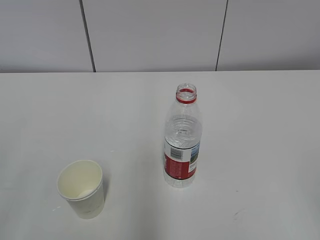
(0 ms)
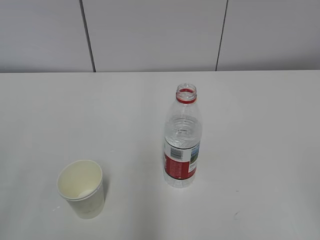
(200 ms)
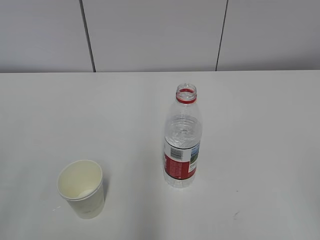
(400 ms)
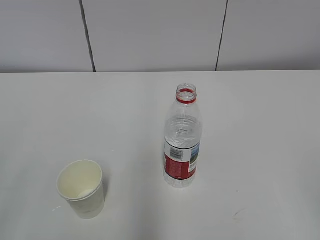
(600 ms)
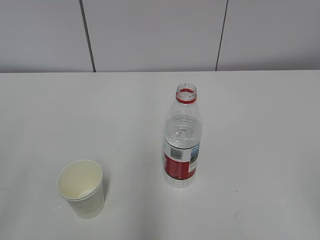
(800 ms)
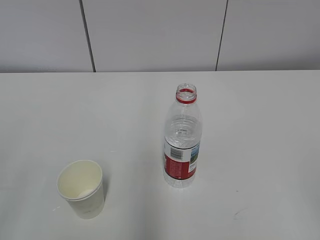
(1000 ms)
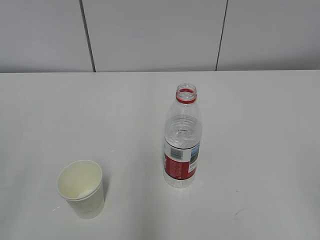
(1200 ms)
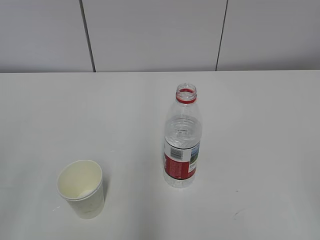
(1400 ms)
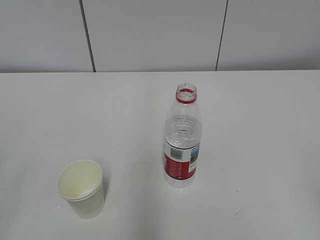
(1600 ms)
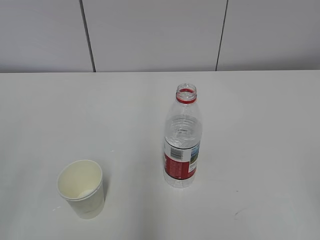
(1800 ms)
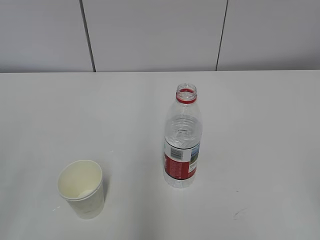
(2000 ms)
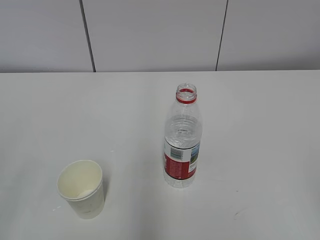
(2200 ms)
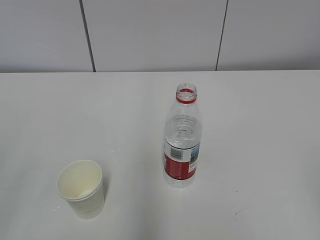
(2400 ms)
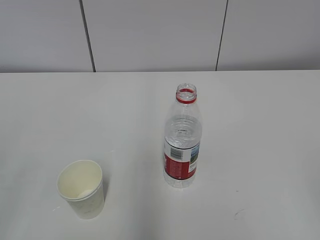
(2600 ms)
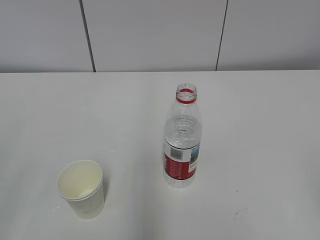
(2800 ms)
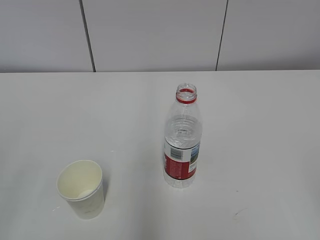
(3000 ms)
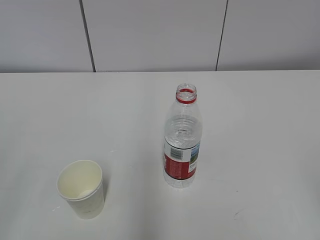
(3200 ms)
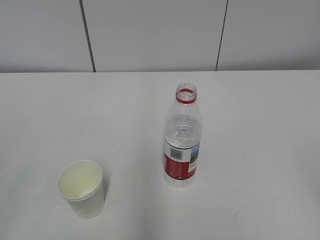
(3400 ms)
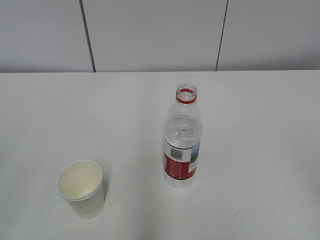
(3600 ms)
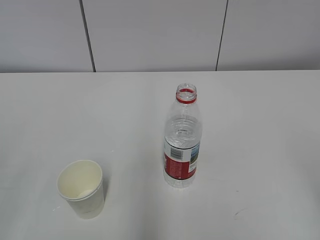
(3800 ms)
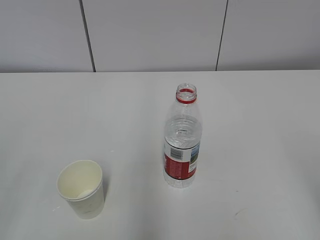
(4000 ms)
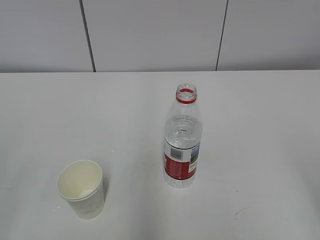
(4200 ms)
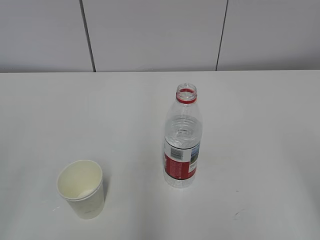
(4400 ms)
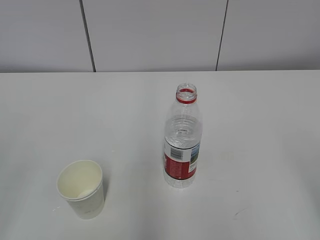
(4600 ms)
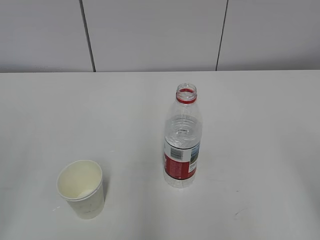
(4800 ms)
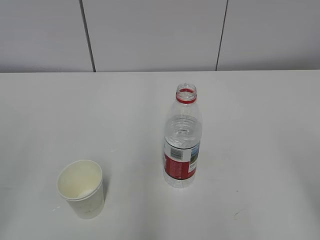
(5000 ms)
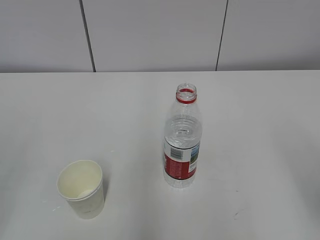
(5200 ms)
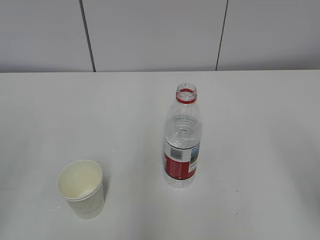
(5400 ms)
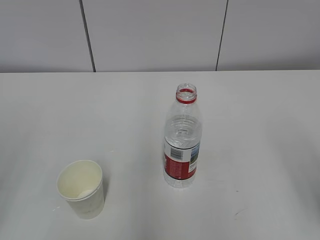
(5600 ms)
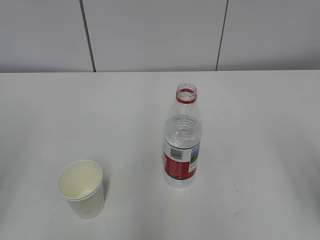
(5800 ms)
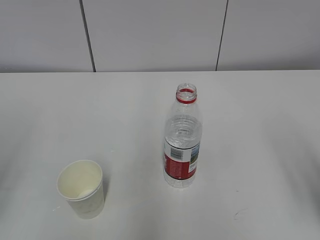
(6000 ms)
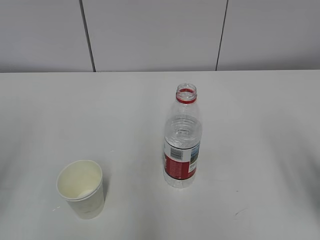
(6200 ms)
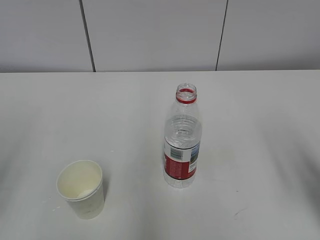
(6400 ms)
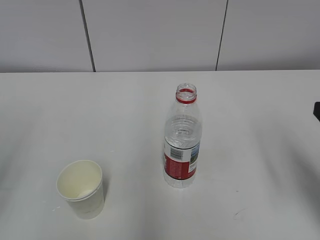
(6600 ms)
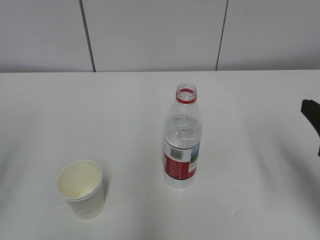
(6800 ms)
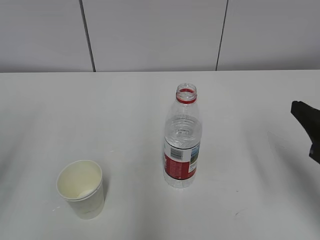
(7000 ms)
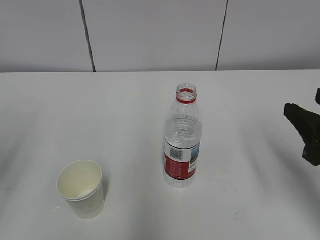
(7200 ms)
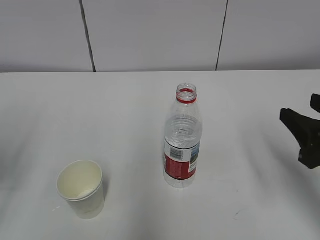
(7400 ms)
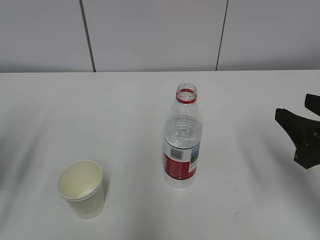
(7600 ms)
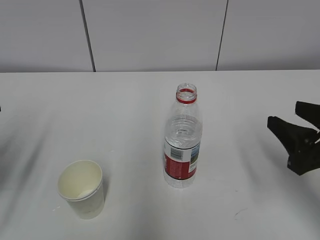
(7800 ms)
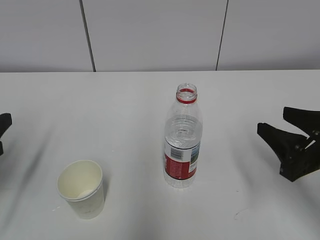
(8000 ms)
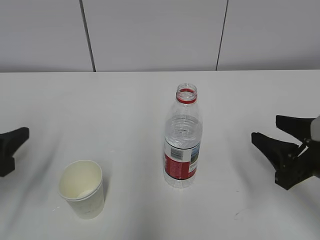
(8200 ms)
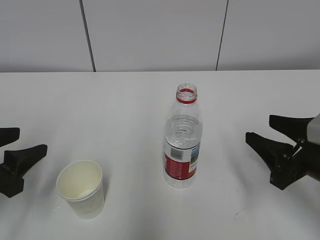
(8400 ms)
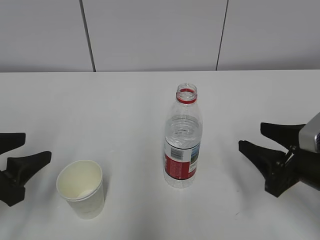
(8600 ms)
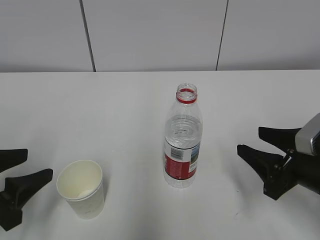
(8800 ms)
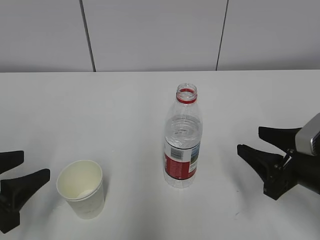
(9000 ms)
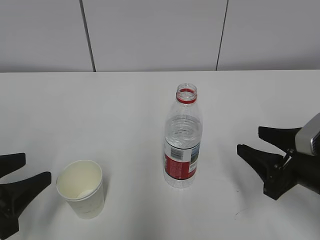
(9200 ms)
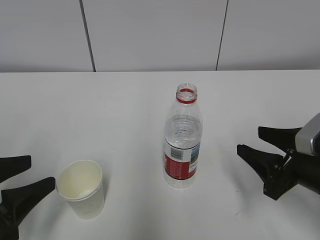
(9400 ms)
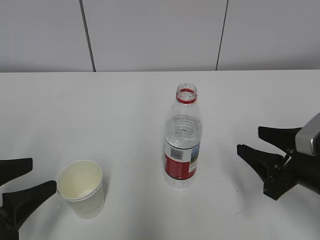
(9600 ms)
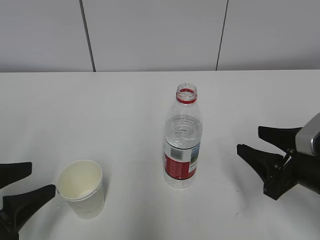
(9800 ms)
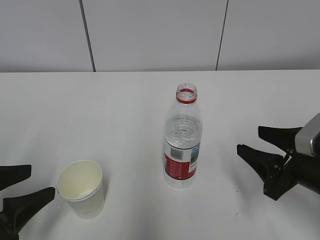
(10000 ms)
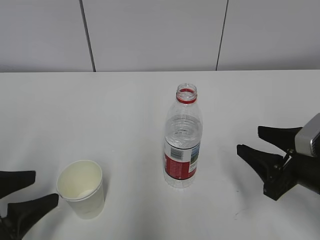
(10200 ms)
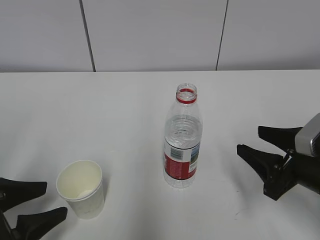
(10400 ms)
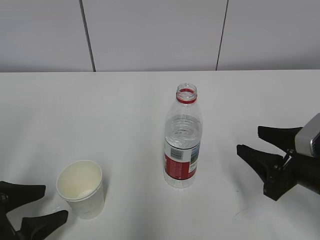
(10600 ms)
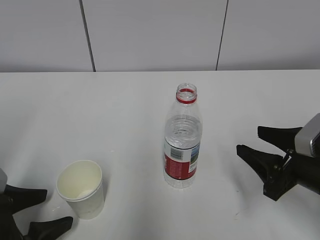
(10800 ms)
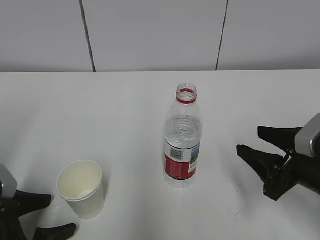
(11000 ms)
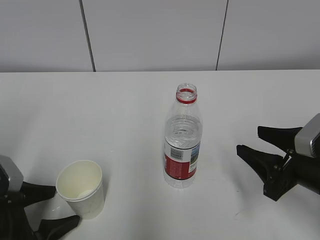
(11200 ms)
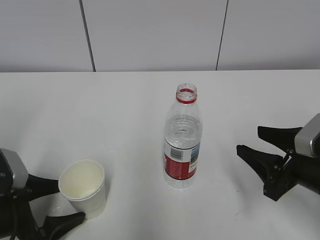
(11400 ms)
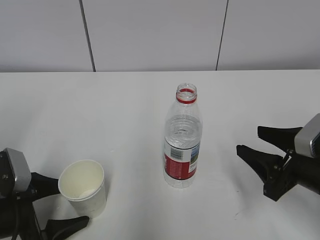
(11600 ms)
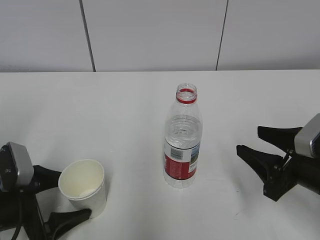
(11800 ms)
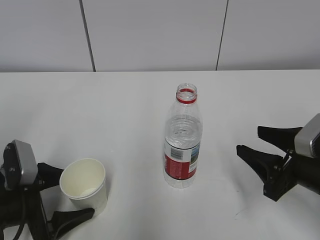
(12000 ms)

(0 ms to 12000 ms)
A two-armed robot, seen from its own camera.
Step, 0 ms - 11400 ms: Grab the paper cup with the left hand.
1600 ms - 3000 ms: Neither gripper changes place.
6000 ms - 7600 ms: The right gripper moves forward and downward, some 10 cm.
7600 ms - 9000 ms: The two grippers go some 5 cm downward.
9000 ms - 10400 ms: The grippers stay close to where they were, moving slightly.
10400 ms - 12000 ms: The left gripper travels forward by roughly 5 cm.

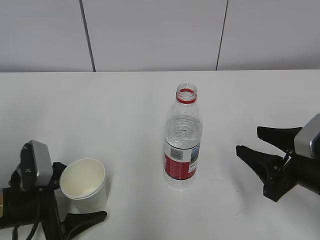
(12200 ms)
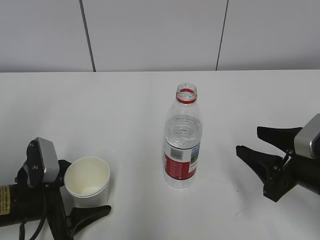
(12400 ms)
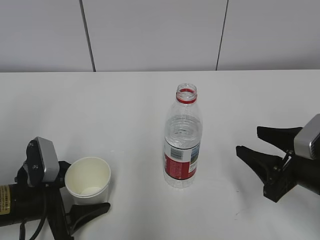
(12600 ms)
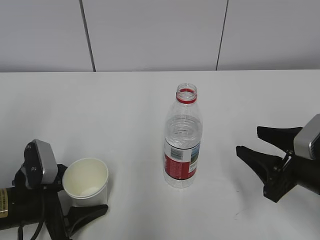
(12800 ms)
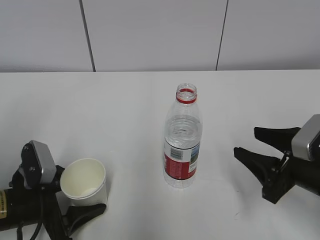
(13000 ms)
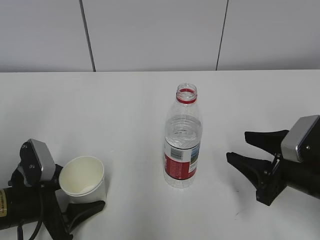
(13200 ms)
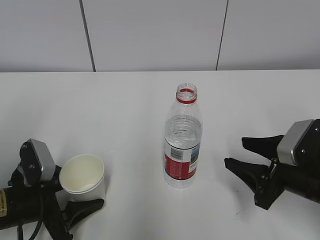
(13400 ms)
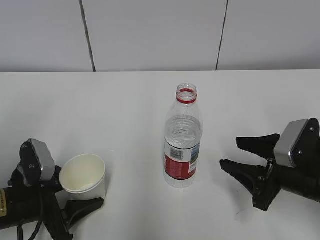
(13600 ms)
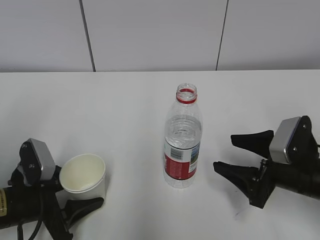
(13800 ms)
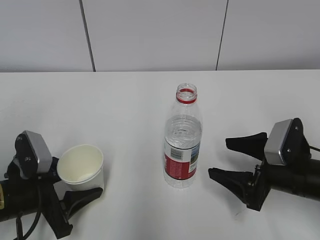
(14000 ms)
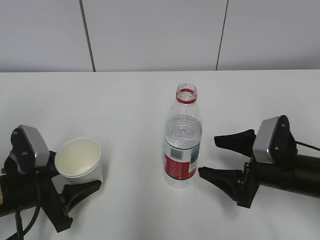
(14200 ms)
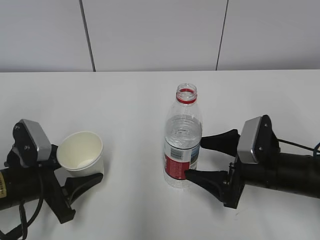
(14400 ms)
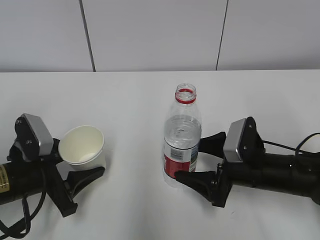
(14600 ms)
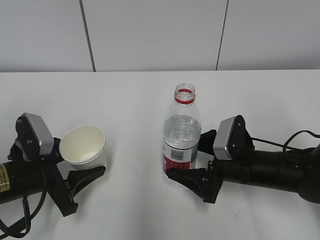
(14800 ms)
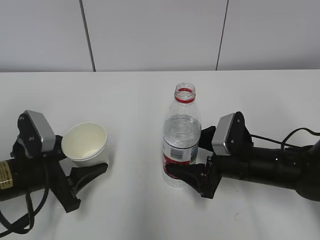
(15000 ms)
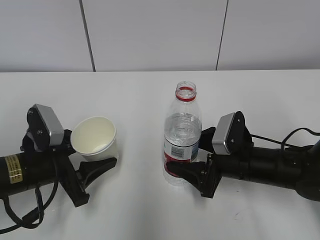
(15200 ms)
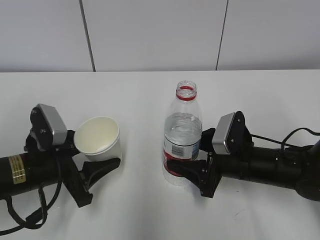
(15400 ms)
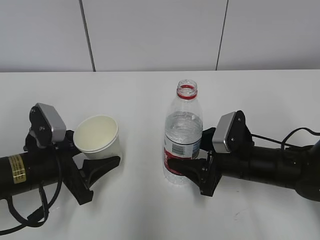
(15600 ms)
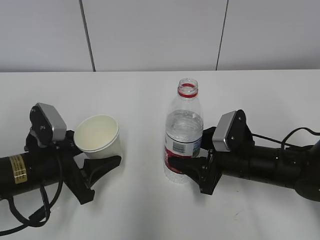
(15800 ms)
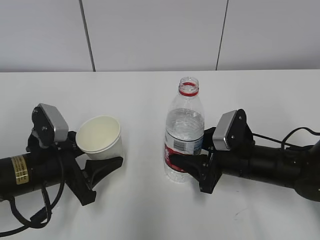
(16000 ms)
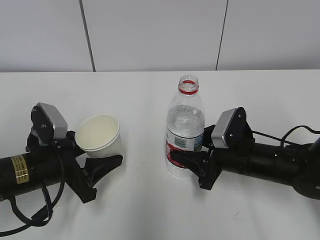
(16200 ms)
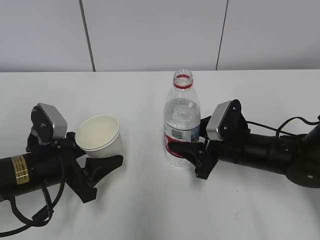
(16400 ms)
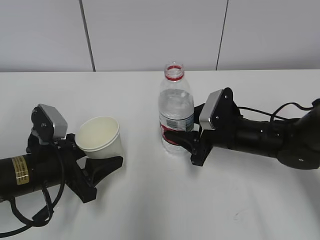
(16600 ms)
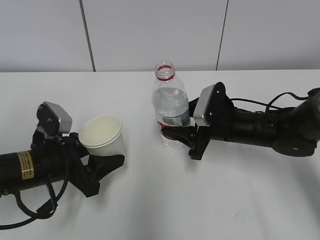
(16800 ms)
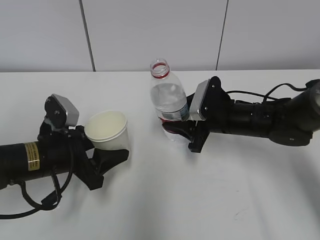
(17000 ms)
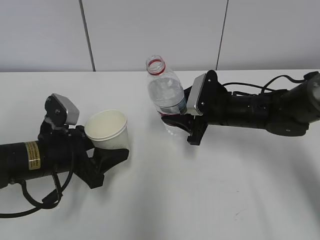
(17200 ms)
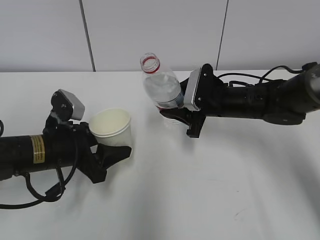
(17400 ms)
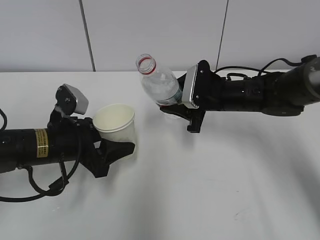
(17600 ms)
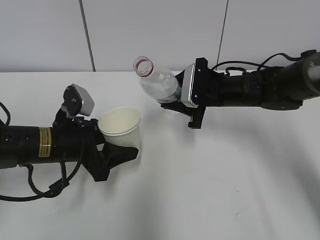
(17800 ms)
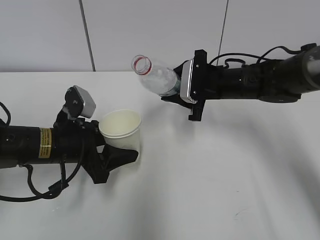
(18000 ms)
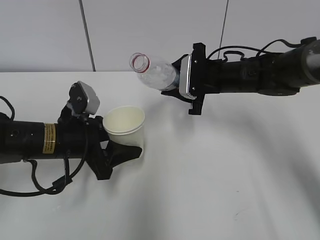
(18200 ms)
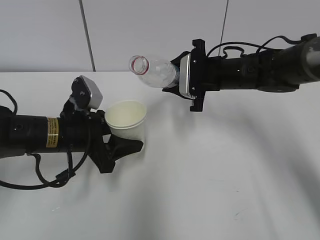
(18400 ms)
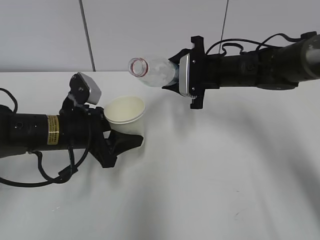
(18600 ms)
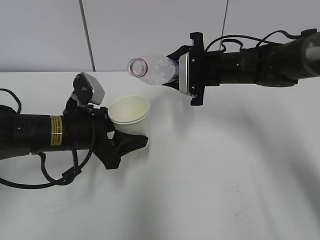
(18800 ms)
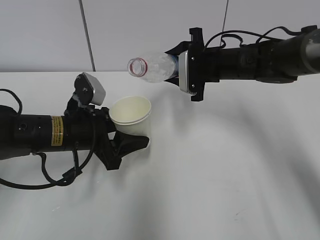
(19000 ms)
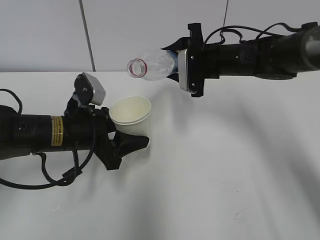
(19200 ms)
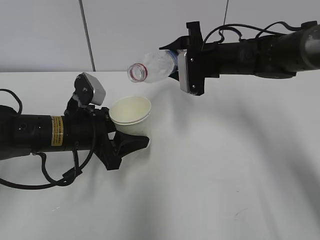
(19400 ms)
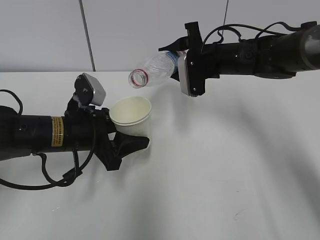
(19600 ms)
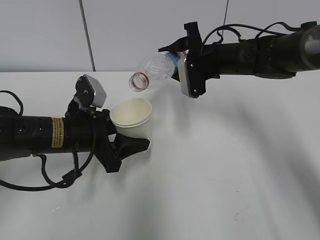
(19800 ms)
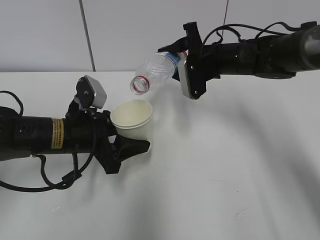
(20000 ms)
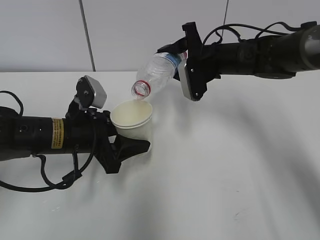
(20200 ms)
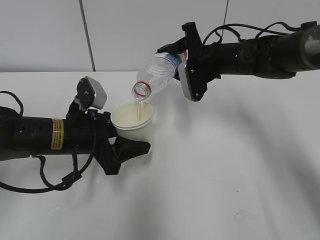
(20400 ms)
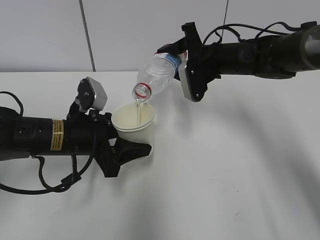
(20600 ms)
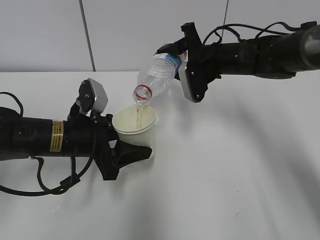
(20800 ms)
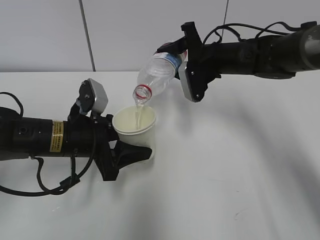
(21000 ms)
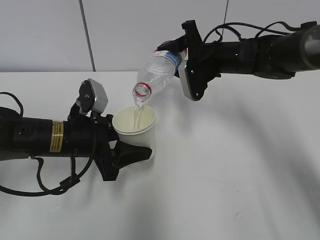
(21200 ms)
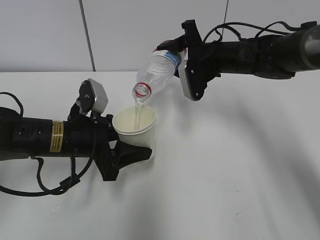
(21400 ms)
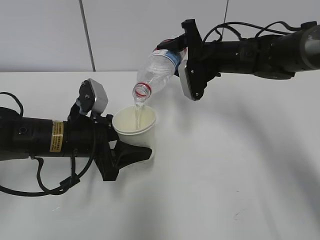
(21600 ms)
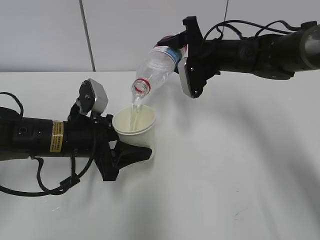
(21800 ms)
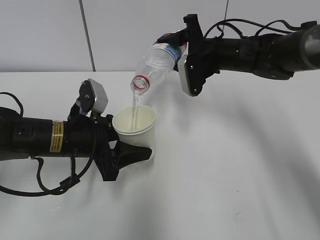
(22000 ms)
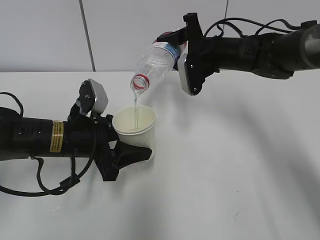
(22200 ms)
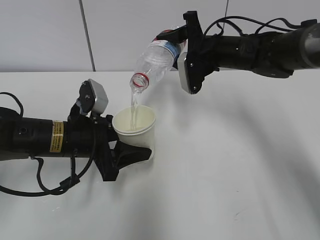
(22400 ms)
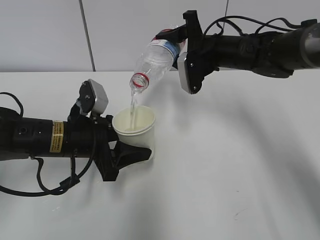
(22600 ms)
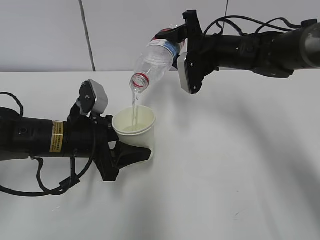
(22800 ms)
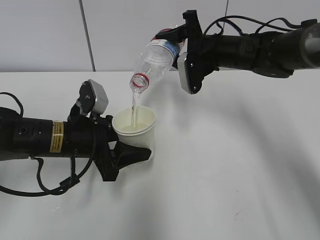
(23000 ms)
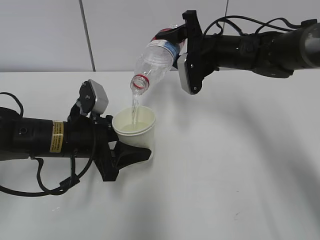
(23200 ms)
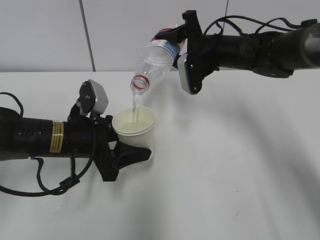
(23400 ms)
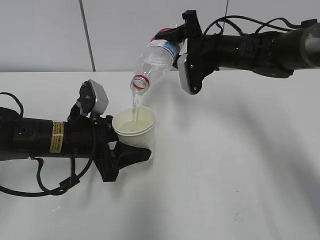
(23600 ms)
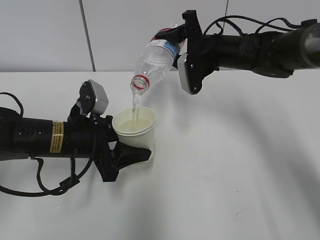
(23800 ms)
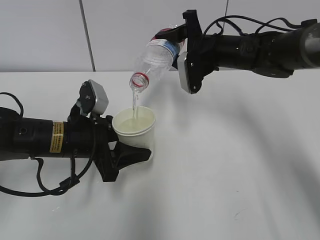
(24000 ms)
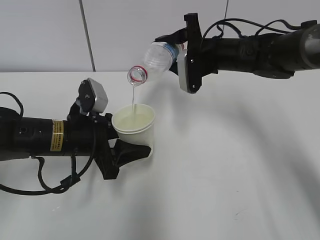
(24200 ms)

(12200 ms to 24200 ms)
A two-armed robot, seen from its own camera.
Step, 12200 ms - 13400 ms: Grab the water bottle with the right hand.
Step, 13600 ms - 16800 ms: Lift the paper cup with the left hand.
Step, 17000 ms - 20200 ms: Fill water with the left hand.
Step, 17000 ms - 20200 ms: Pour water with the right hand.
Step, 20400 ms - 21200 ms: Collect water with the right hand.
12200 ms - 13800 ms: The right gripper opens up. The left gripper closes up.
13800 ms - 15200 ms: The right gripper shifts some 10 cm to the left and forward, while the left gripper moves some 5 cm.
15200 ms - 16600 ms: The right gripper moves forward, some 5 cm, and closes.
16600 ms - 18200 ms: The right gripper travels forward and upward by approximately 10 cm, while the left gripper ends up roughly 5 cm from where it was.
19800 ms - 24200 ms: The grippers make only small movements.
